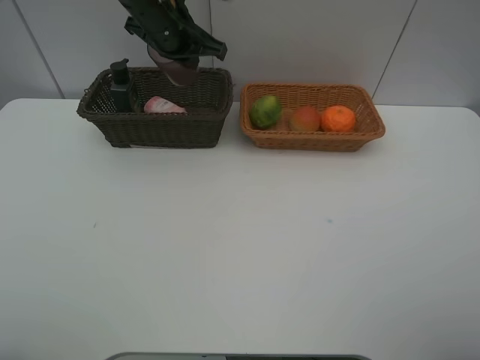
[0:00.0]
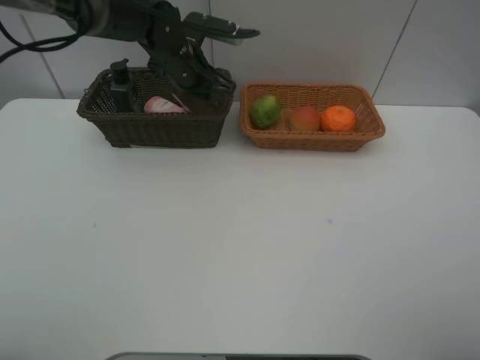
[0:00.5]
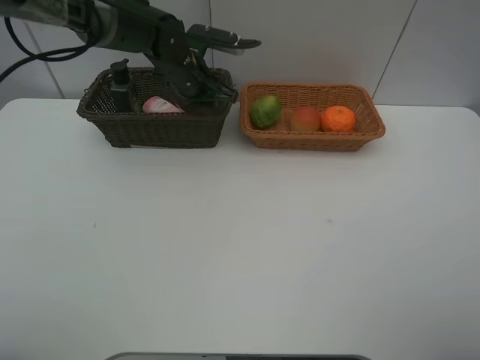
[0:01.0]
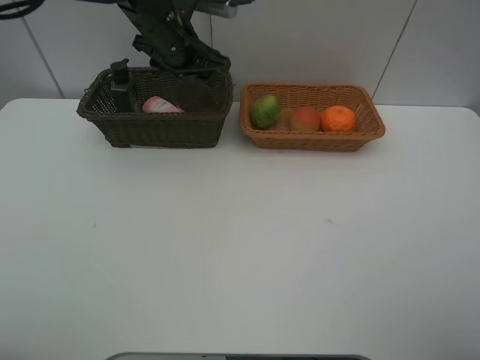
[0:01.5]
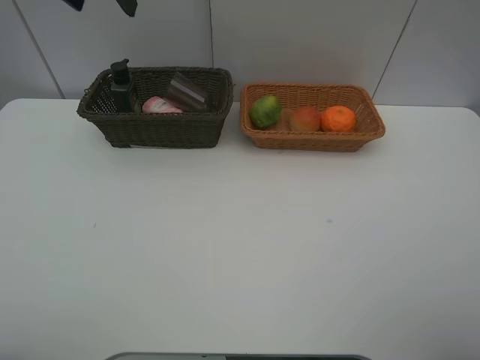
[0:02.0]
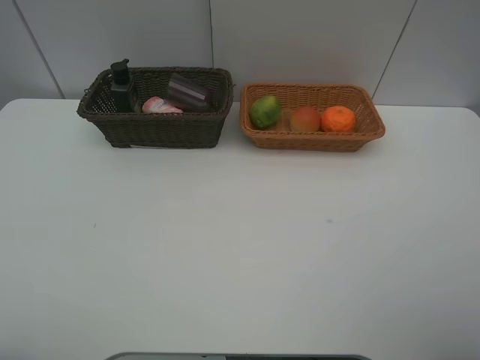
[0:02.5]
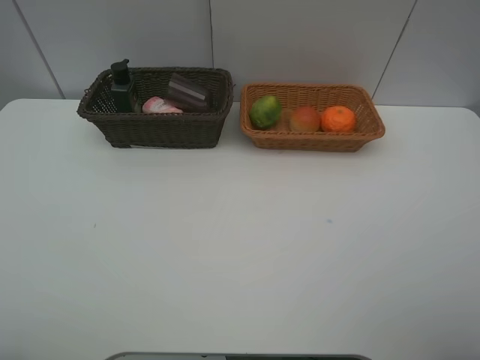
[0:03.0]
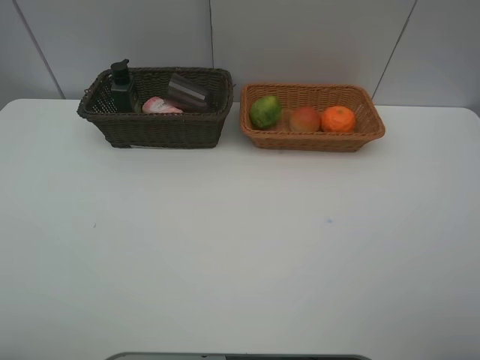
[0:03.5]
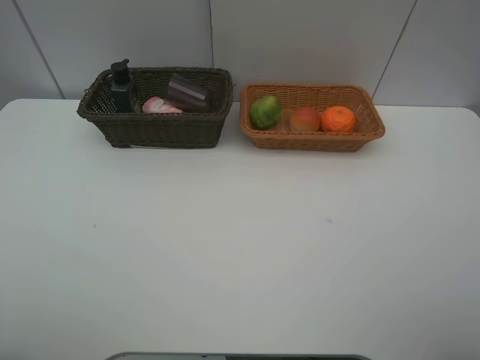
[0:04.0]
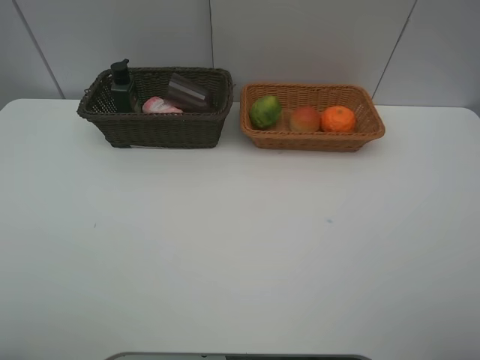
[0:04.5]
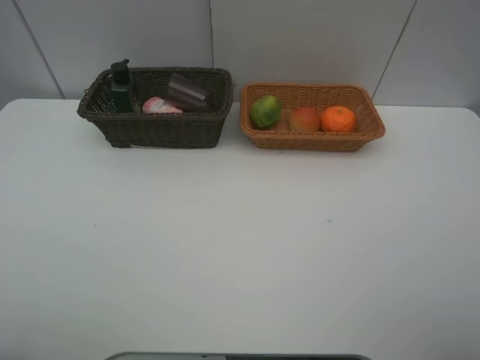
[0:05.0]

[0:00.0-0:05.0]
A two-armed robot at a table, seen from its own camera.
Task of the whole recording: place multiple objects separately in different baskets.
0:00.0 to 0:02.5: The left gripper heads upward, backward and to the left, covering approximately 40 cm, and opens its fingers.
